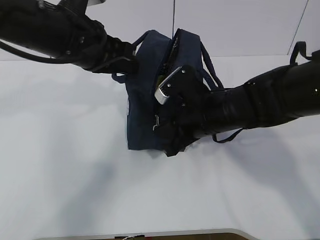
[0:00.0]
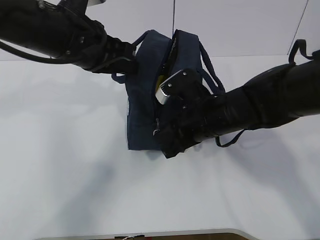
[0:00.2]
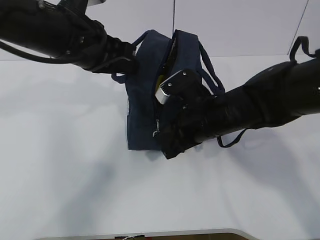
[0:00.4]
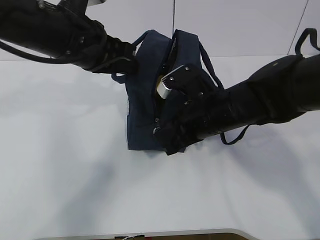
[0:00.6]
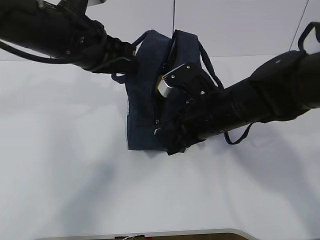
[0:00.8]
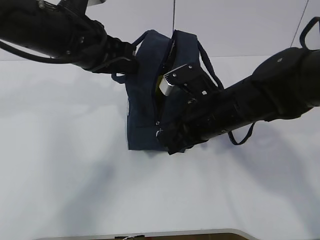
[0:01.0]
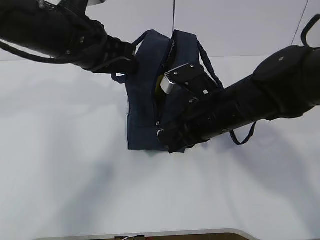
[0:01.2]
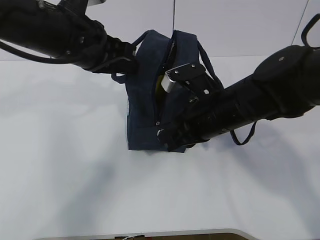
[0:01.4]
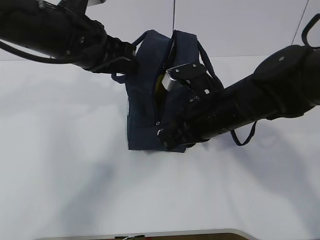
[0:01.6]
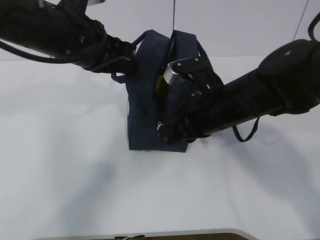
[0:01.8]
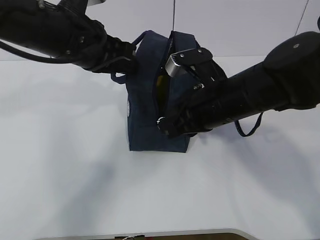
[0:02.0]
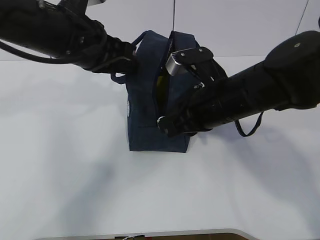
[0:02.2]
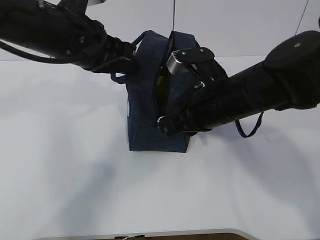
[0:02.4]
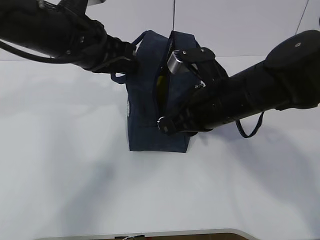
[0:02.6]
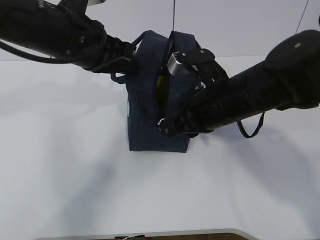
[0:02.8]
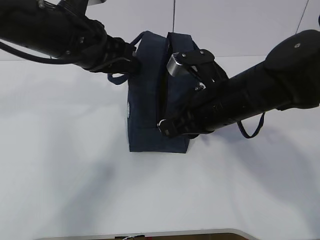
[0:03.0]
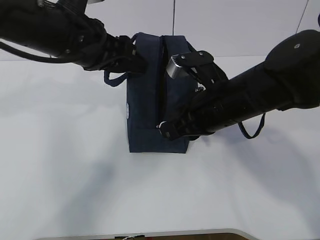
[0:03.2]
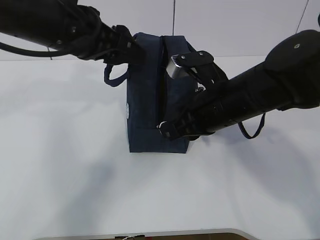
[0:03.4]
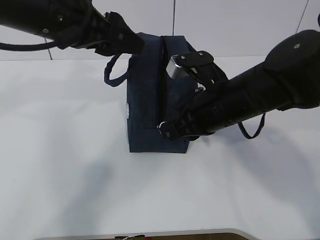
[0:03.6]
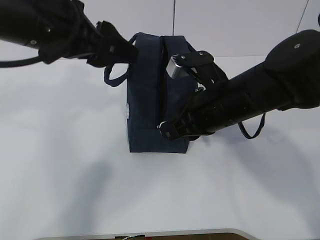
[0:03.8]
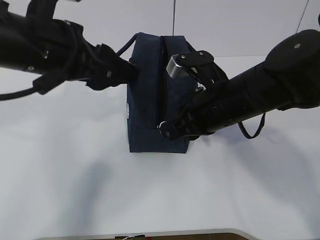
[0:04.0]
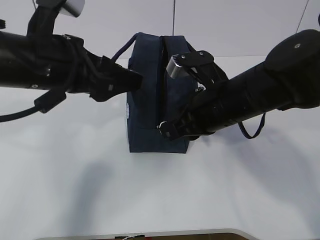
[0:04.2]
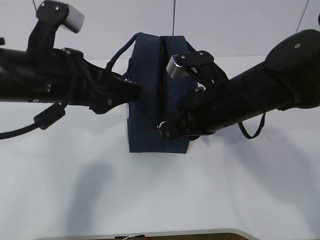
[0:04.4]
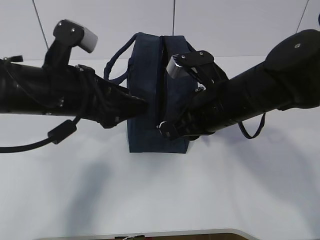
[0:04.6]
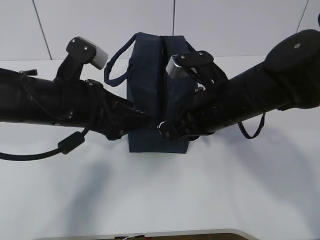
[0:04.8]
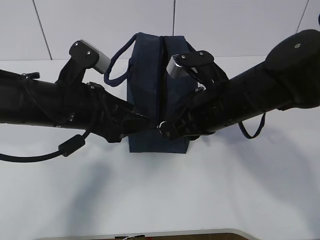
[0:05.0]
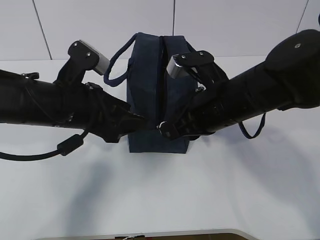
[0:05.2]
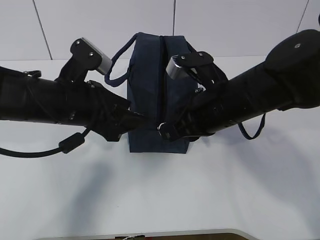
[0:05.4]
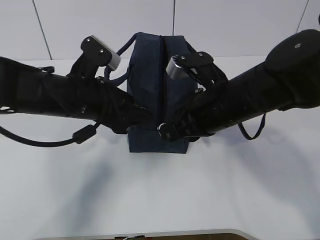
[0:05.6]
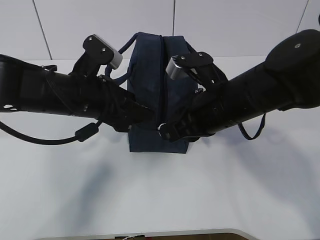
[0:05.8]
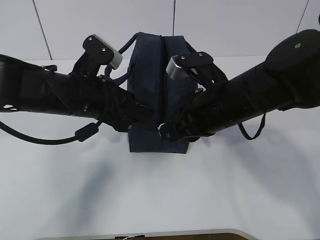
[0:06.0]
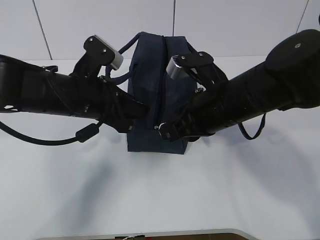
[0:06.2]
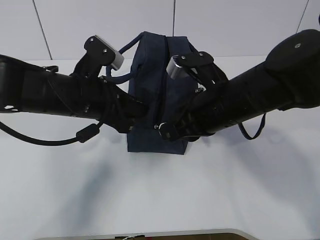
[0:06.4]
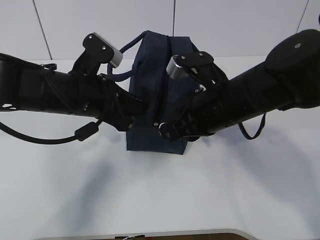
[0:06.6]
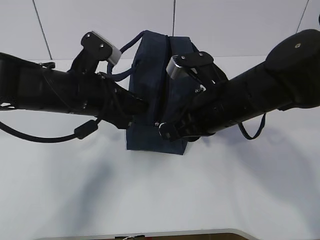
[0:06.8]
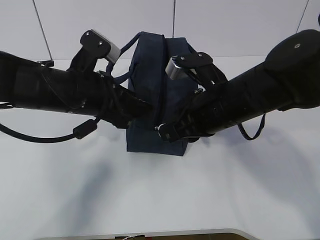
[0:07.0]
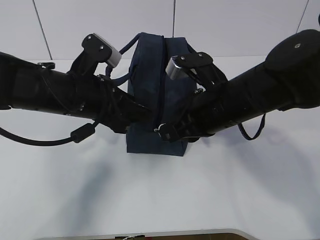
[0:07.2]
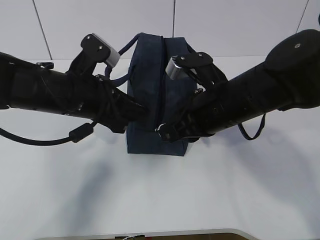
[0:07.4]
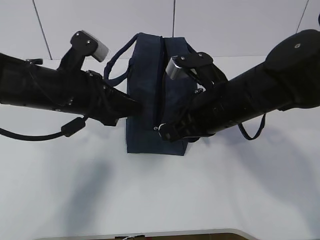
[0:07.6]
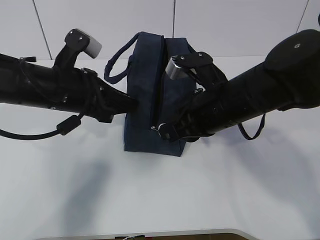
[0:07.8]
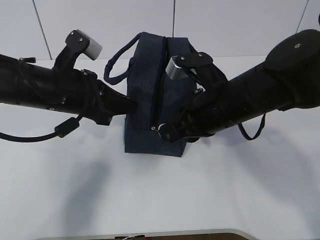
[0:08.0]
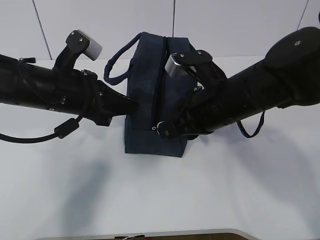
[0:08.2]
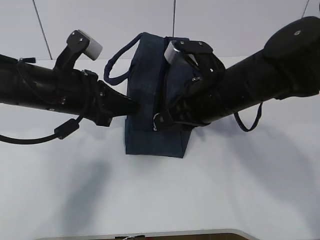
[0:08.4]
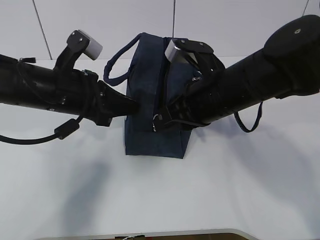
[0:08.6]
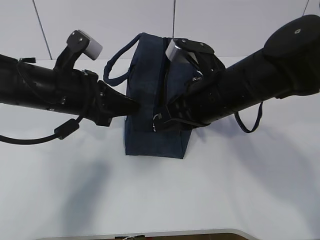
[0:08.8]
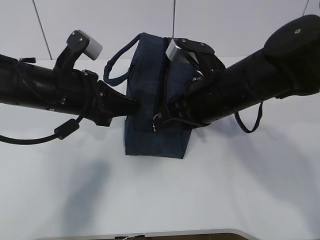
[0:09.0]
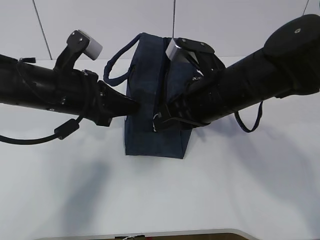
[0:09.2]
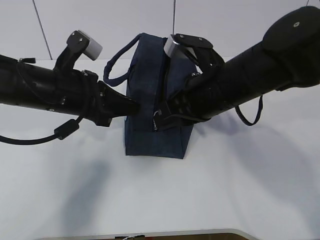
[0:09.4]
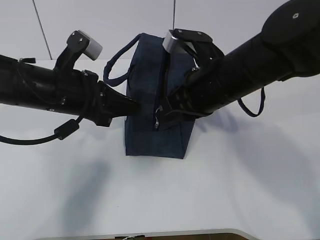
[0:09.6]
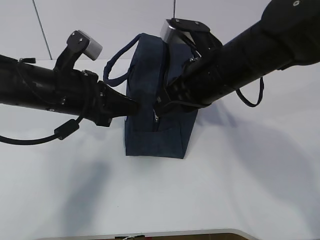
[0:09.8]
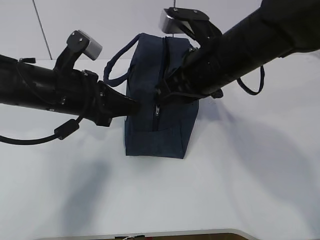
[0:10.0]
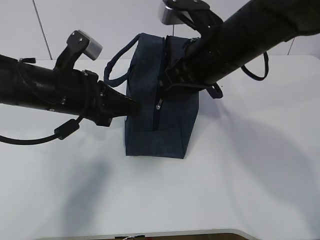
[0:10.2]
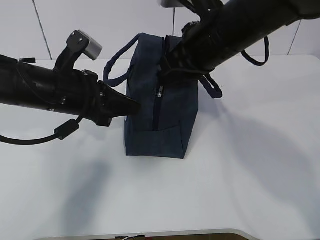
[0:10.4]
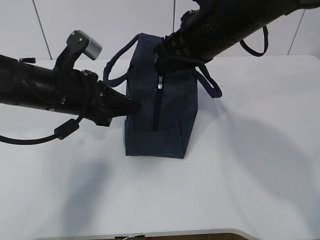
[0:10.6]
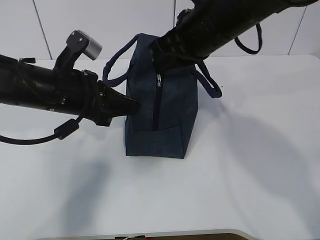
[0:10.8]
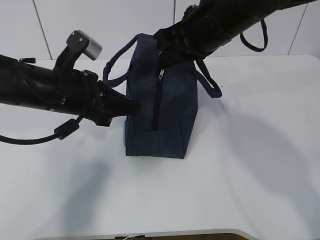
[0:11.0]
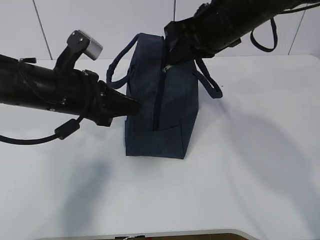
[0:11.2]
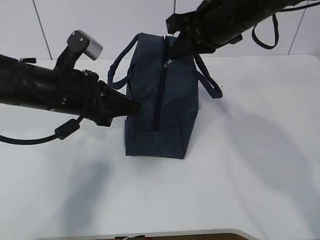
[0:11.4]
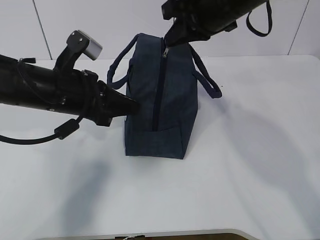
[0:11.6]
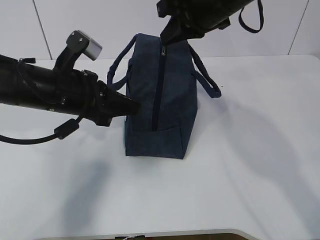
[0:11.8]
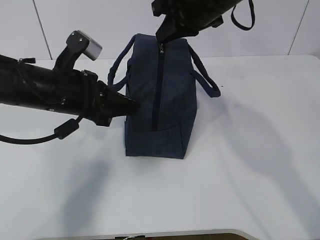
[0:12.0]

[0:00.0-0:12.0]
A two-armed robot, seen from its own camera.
Step, 0:00.0 to 0:08.8: Grab the lunch bag with your left hand.
0:00.0 to 0:01.6: The grippers make only small movements.
0:01.6 to 0:03.0: The left gripper opens its fingers.
0:03.0 to 0:04.4: The left gripper goes roughly 5 cm backward, and opens its fingers.
0:04.4 to 0:06.0: The left gripper goes approximately 5 cm downward.
0:06.0 to 0:07.6: The left gripper closes its fingers.
0:07.6 to 0:09.0: The left gripper closes its fingers.
0:09.0 to 0:10.4: The right gripper goes some 5 cm upward.
0:10.4 to 0:12.0: The right gripper is displaced forward by some 10 cm.

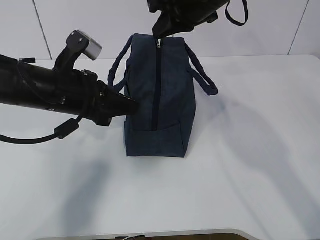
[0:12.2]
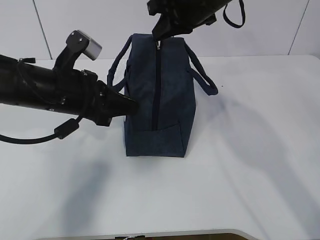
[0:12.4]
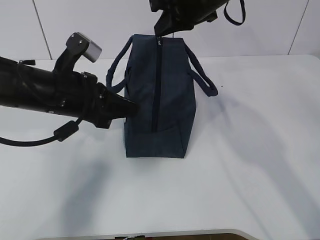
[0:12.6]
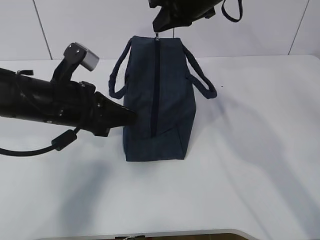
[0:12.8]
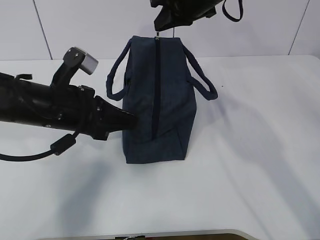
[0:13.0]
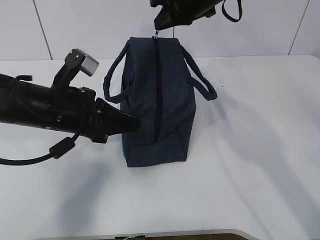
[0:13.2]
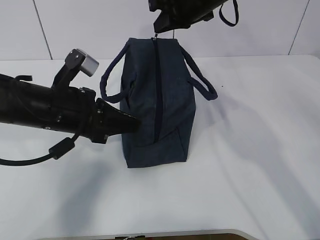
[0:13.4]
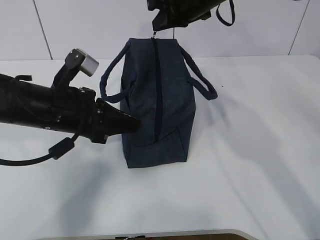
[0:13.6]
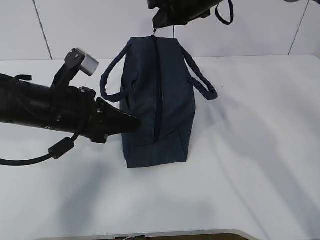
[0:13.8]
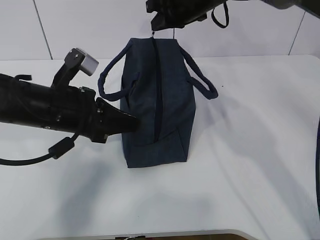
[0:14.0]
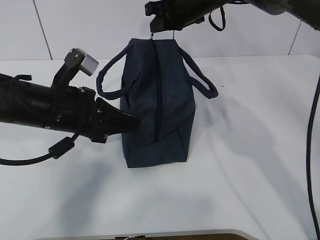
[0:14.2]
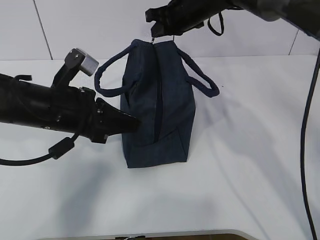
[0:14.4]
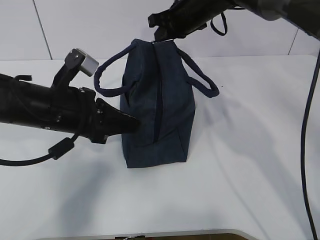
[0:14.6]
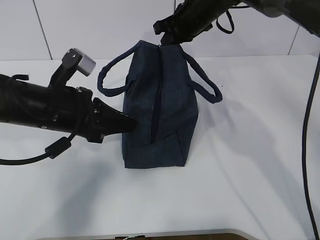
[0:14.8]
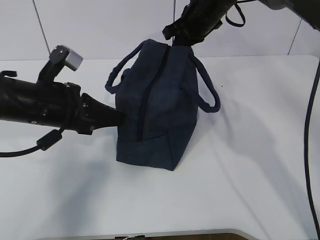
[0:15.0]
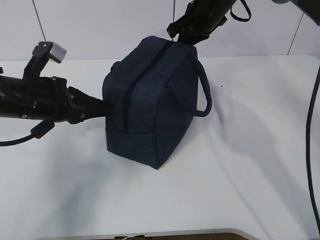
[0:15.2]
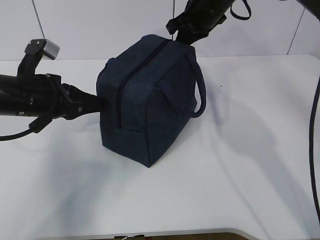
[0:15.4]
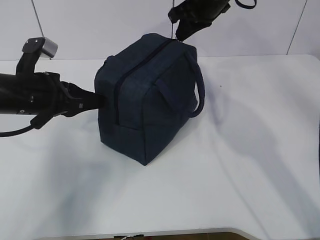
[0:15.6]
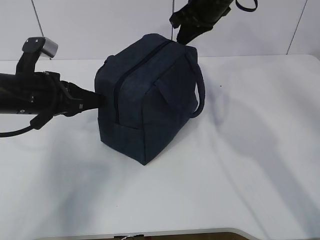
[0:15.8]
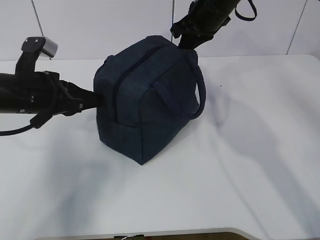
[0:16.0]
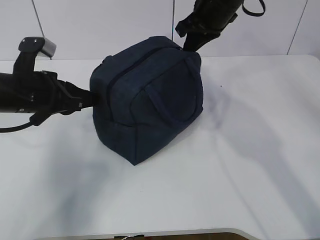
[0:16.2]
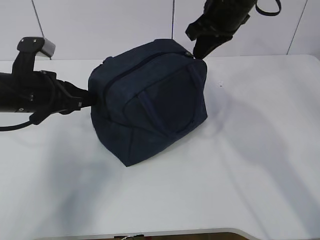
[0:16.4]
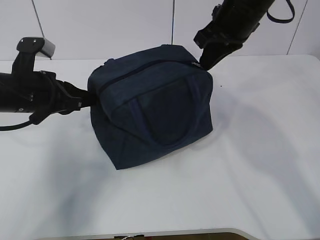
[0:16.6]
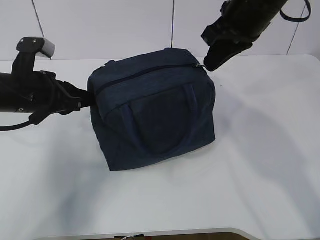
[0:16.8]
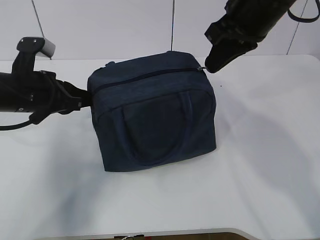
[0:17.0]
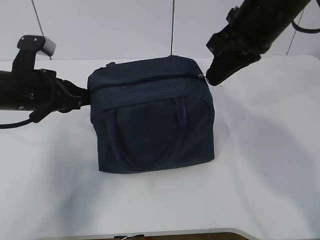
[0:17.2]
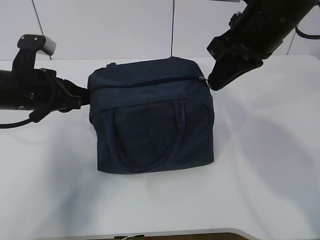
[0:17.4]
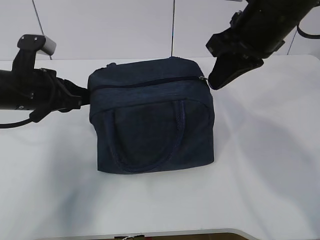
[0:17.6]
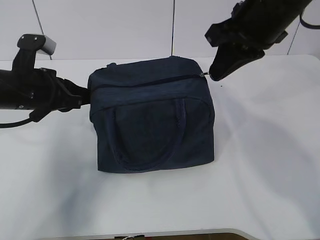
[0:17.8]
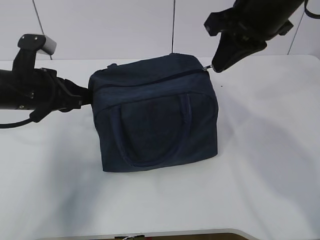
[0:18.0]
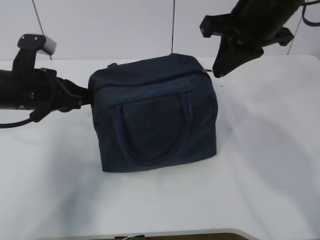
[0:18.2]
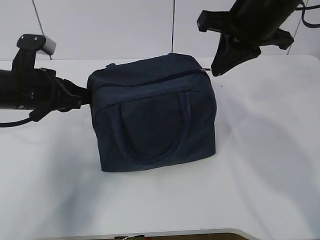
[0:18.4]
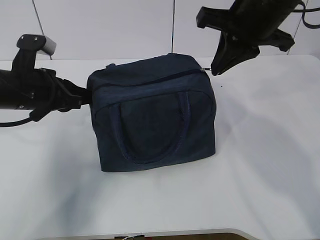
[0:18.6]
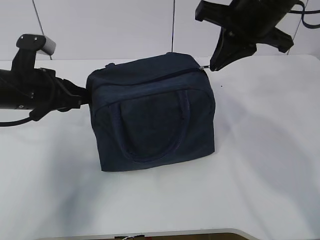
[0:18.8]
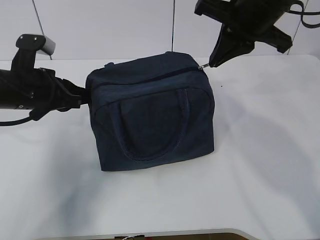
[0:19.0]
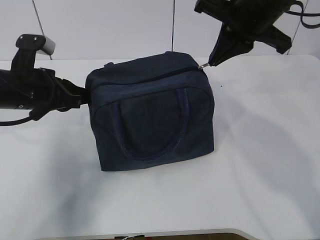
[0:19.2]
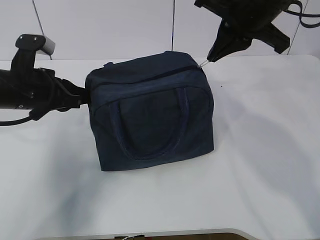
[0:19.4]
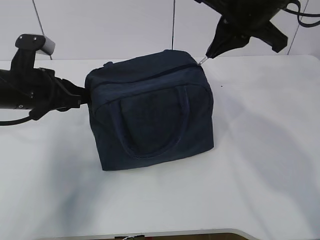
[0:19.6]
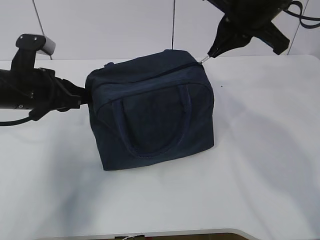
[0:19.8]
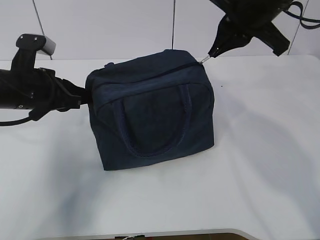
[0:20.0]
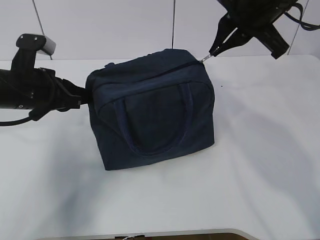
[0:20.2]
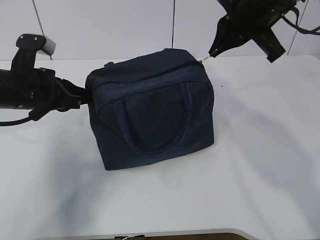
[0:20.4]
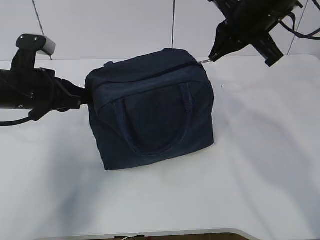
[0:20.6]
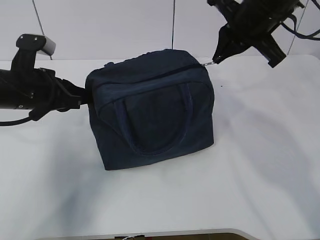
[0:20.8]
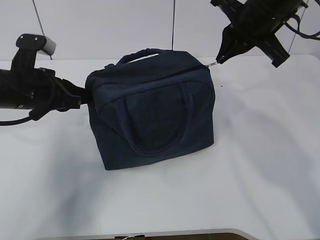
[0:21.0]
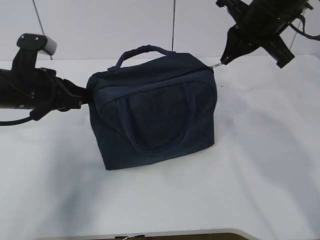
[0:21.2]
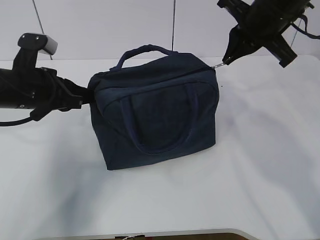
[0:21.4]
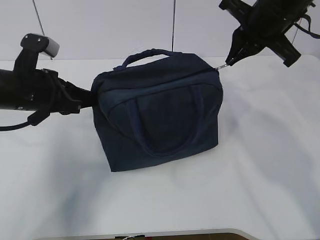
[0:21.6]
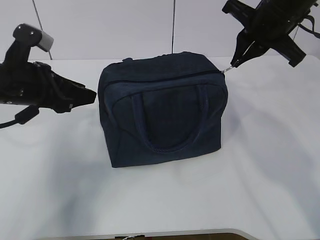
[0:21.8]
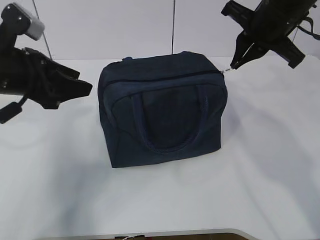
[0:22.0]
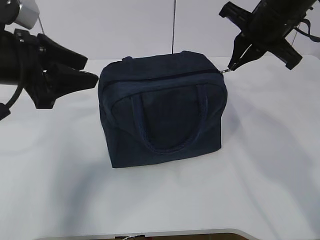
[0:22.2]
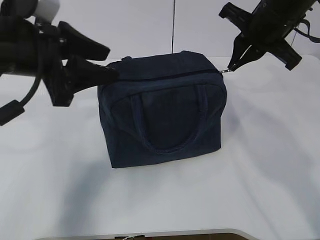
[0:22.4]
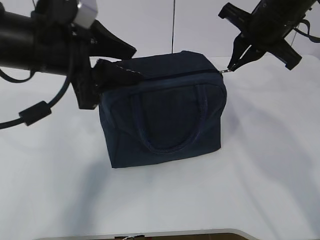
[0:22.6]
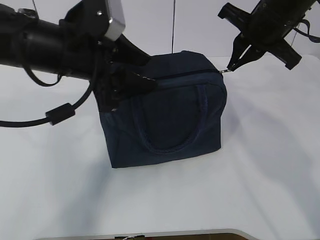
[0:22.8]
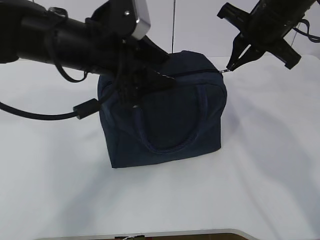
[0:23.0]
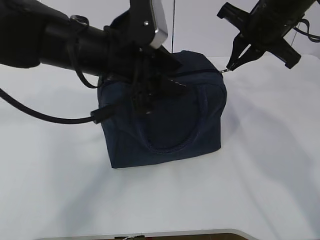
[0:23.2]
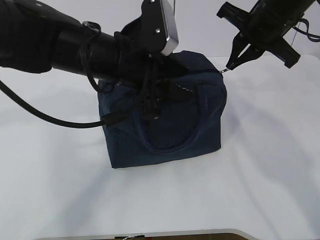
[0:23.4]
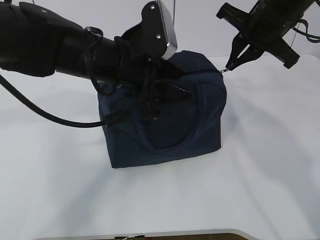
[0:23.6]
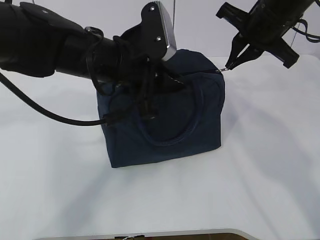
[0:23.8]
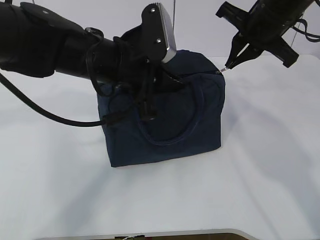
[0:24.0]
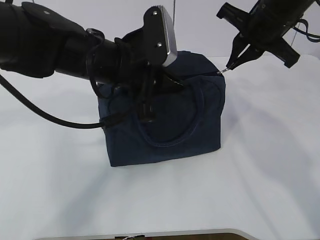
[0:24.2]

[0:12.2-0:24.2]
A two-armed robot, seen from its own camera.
0:12.2 to 0:13.8: The right gripper is displaced forward by roughly 5 cm.
0:13.8 to 0:15.2: The left gripper changes place by roughly 5 cm.
0:15.2 to 0:16.6: The right gripper shifts about 10 cm backward.
0:16.6 to 0:18.2: The right gripper moves backward, approximately 5 cm.
0:21.2 to 0:22.6: The left gripper moves upward, to the right and backward, approximately 15 cm, and opens its fingers.
0:22.6 to 0:24.2: The left gripper goes approximately 10 cm to the right, and closes.
